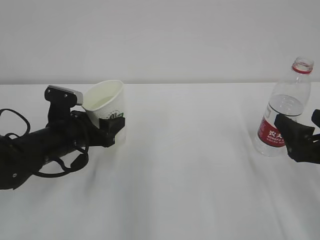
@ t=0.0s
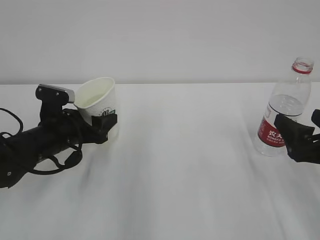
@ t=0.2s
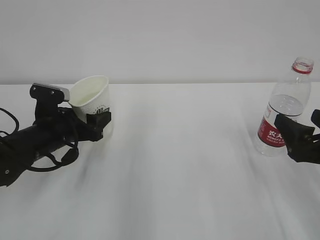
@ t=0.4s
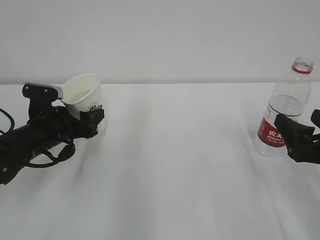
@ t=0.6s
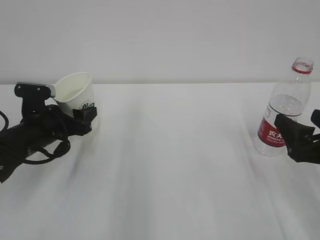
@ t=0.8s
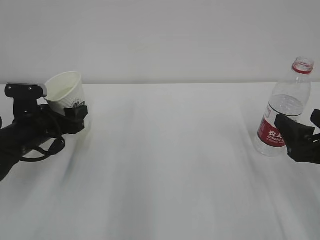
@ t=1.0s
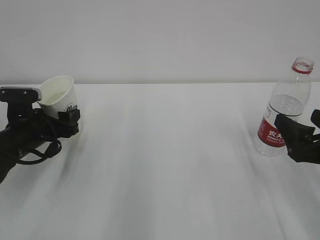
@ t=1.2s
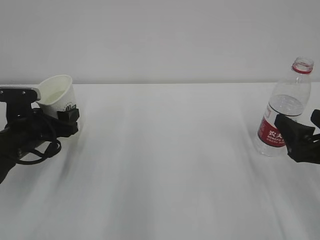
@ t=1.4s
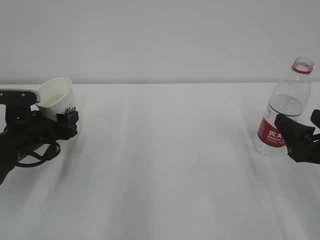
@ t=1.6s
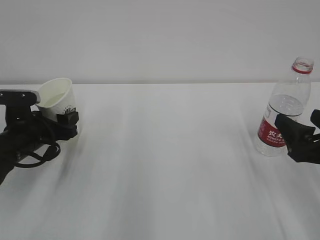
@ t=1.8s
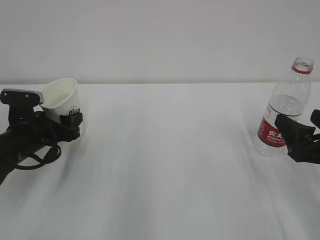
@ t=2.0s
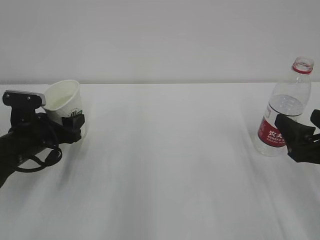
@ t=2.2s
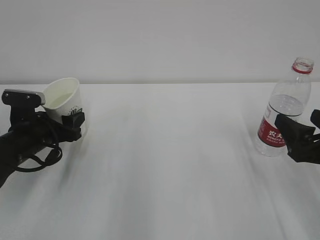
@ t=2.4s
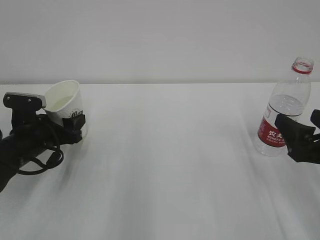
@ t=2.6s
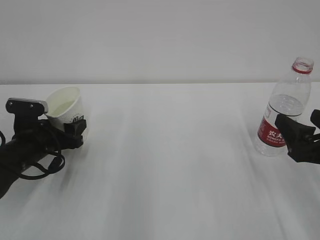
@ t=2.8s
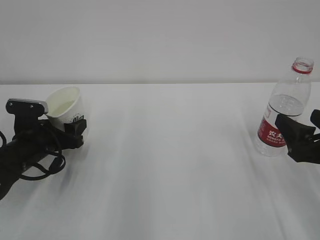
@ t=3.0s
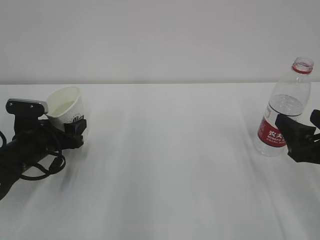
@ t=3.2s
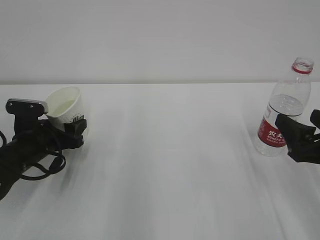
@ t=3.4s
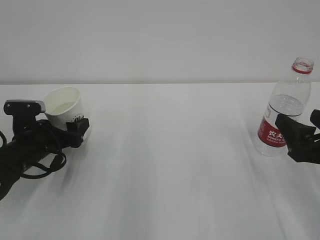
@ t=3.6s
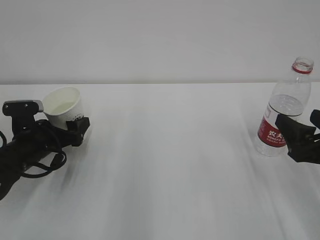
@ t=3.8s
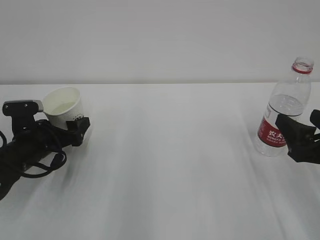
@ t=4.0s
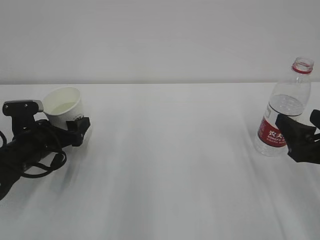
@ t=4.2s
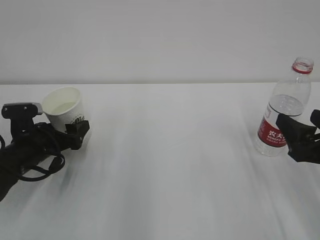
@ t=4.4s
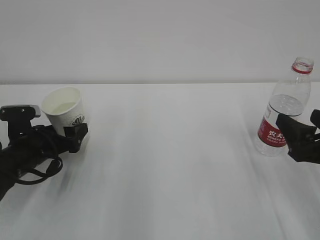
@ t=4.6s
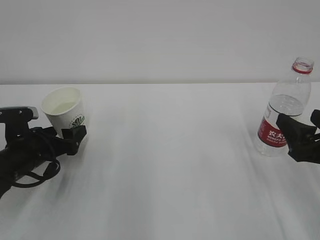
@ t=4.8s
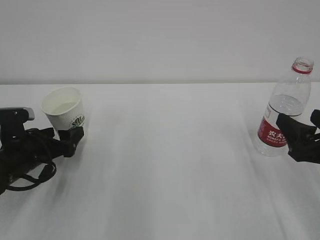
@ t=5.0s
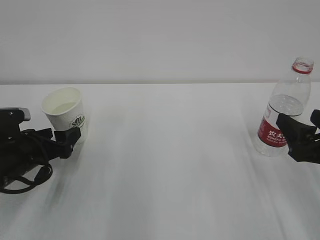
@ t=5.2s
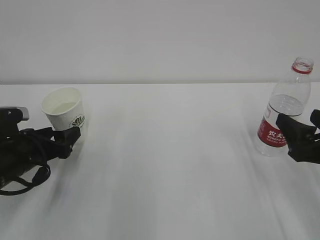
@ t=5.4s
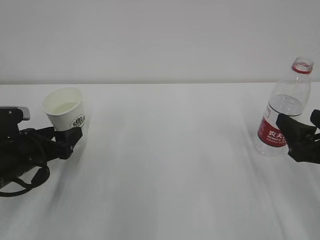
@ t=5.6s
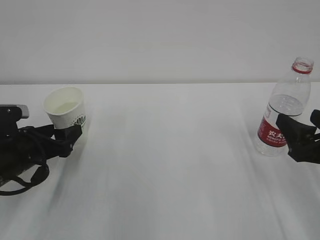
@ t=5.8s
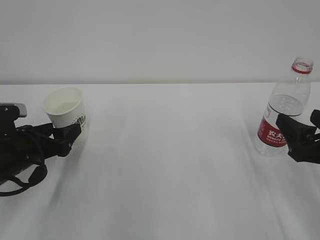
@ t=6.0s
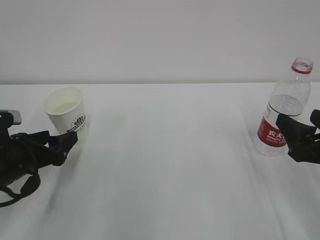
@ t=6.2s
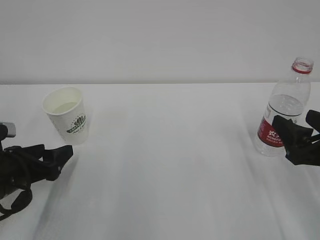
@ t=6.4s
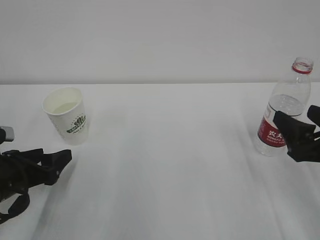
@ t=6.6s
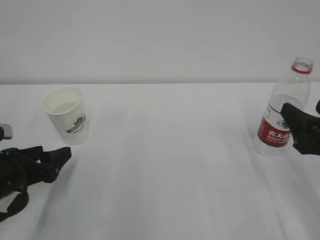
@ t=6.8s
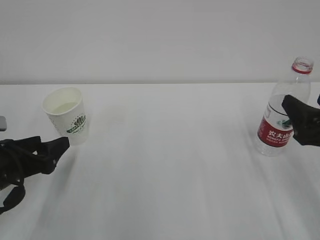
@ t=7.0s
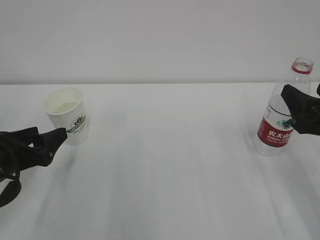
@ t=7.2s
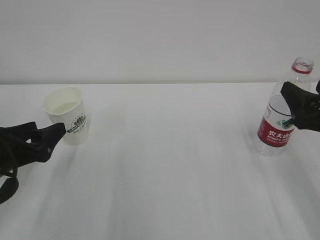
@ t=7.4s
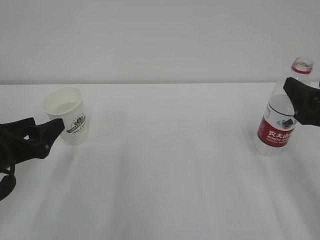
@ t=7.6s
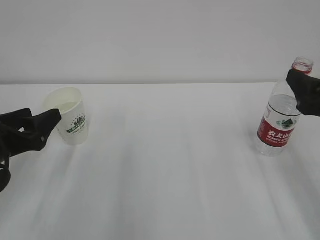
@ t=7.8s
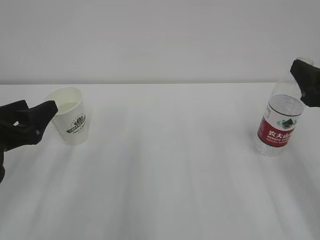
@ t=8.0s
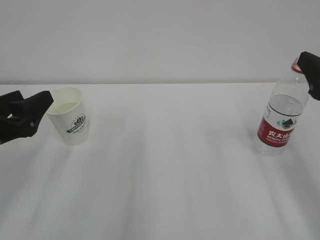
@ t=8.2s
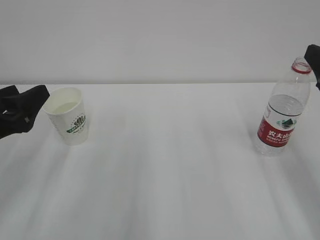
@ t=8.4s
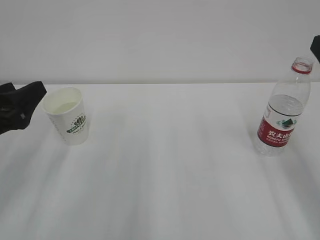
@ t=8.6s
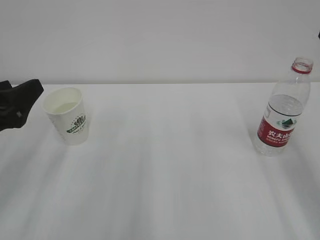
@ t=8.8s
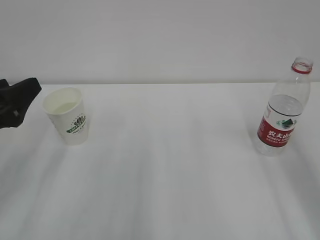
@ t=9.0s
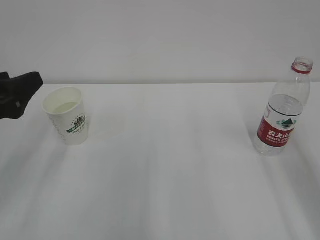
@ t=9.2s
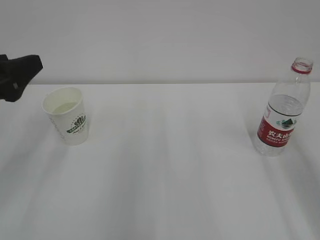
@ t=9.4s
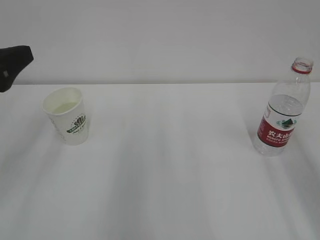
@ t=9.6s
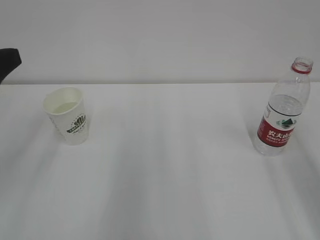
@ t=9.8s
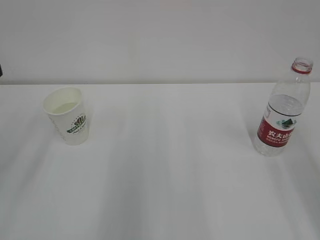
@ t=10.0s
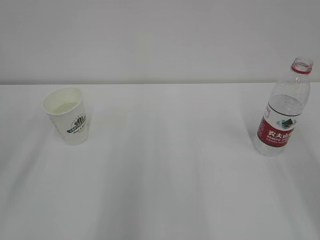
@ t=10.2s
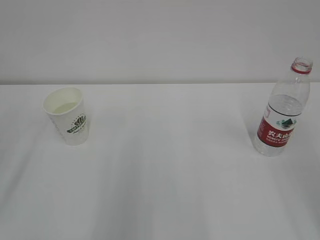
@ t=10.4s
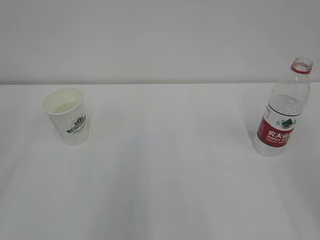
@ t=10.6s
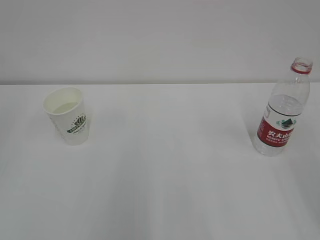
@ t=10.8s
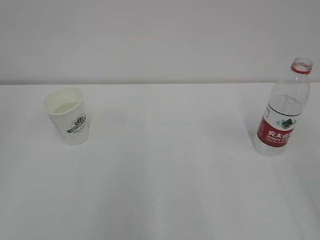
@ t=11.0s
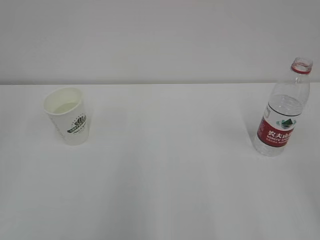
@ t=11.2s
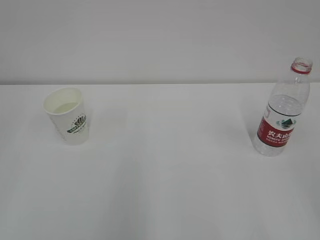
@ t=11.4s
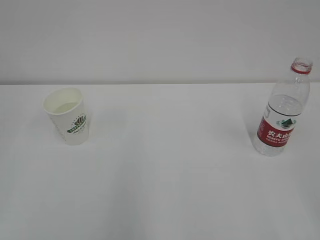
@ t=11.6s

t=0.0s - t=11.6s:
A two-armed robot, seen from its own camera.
t=0.0s - t=1.4s: The left gripper moves to the left, some 5 cm.
t=1.4s - t=2.8s: The grippers stay close to where they were, moving slightly.
t=2.8s - t=4.4s: The left gripper opens.
t=4.4s - t=5.8s: The grippers stay close to where they were, moving slightly.
t=5.8s - t=7.2s: The left gripper changes place by some 5 cm.
t=7.2s - t=8.8s: The two grippers go approximately 10 cm upward.
t=8.8s - t=10.2s: The left gripper is displaced upward and backward by approximately 10 cm.

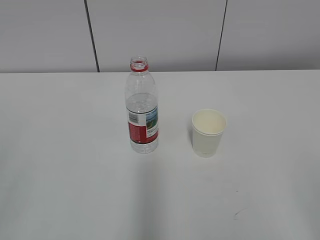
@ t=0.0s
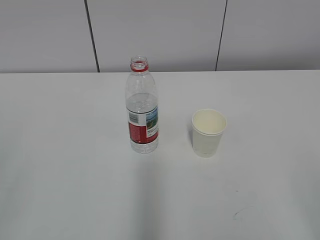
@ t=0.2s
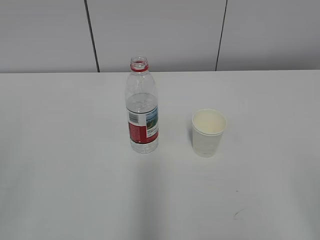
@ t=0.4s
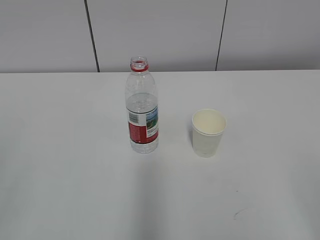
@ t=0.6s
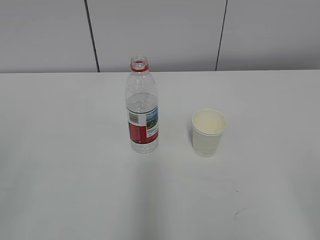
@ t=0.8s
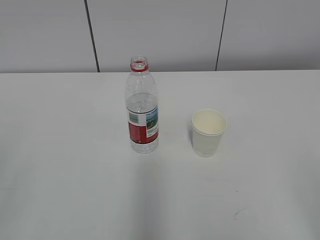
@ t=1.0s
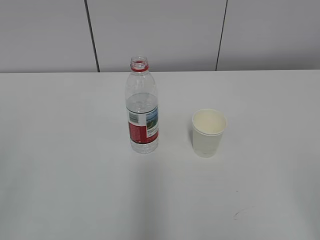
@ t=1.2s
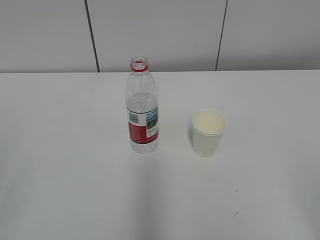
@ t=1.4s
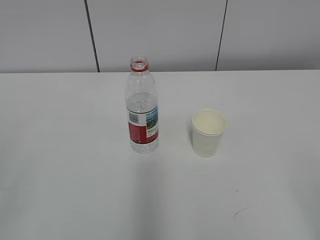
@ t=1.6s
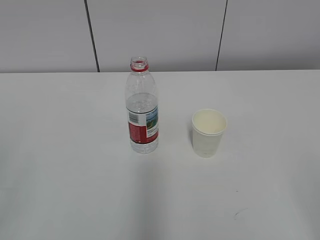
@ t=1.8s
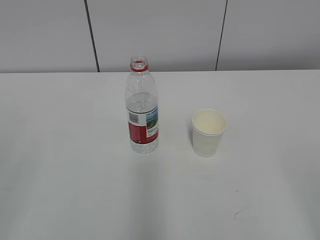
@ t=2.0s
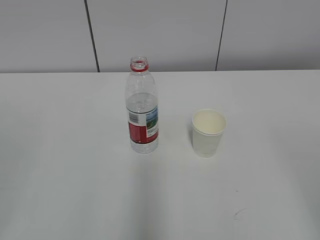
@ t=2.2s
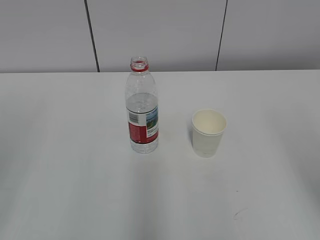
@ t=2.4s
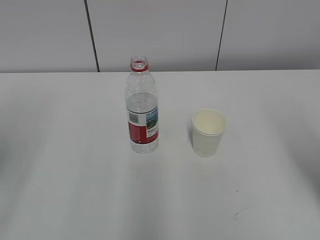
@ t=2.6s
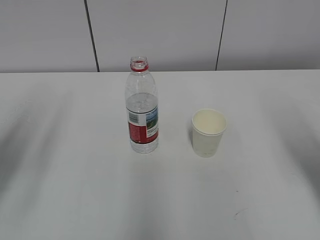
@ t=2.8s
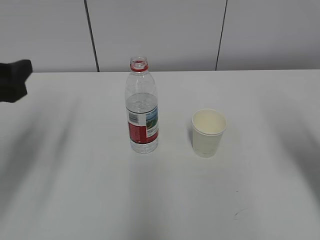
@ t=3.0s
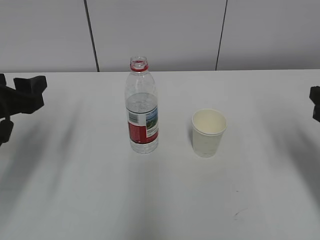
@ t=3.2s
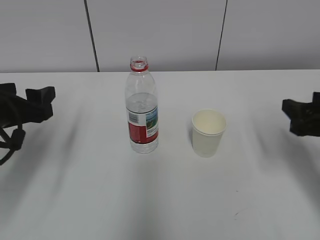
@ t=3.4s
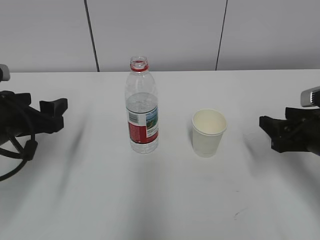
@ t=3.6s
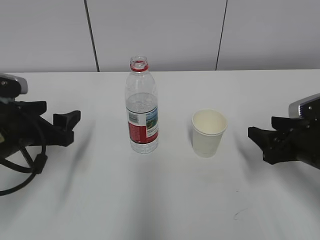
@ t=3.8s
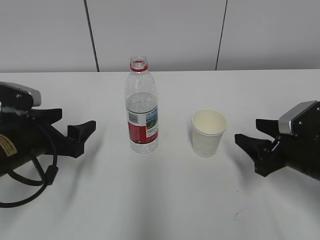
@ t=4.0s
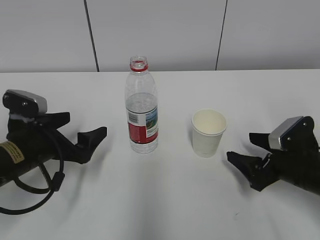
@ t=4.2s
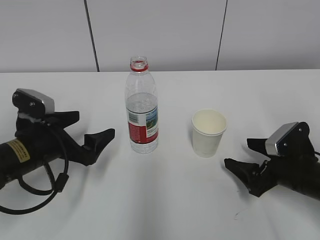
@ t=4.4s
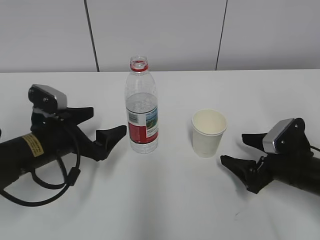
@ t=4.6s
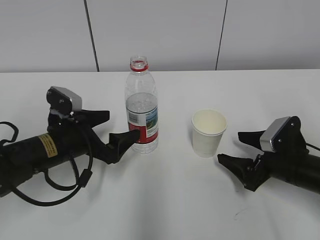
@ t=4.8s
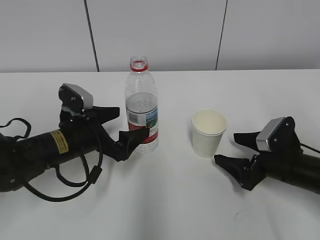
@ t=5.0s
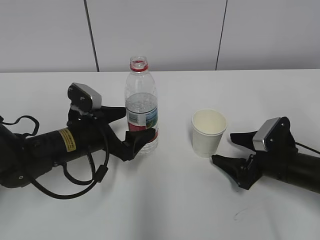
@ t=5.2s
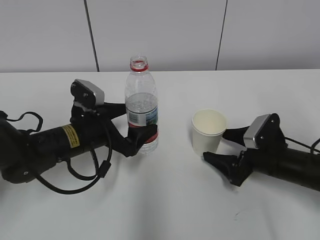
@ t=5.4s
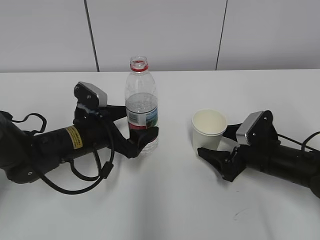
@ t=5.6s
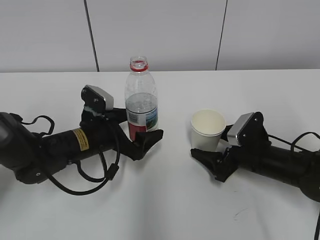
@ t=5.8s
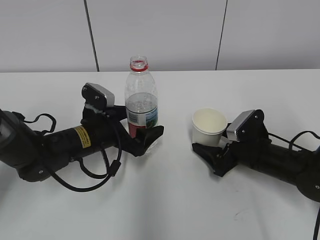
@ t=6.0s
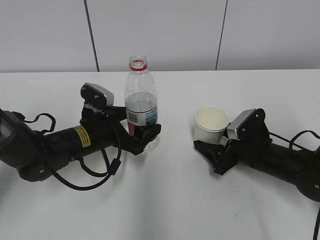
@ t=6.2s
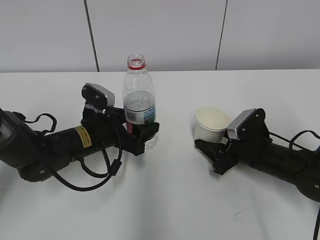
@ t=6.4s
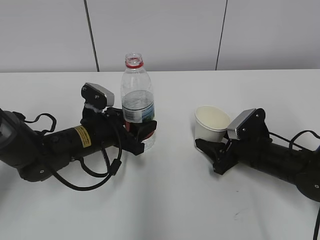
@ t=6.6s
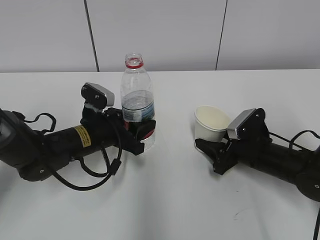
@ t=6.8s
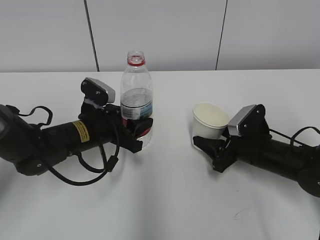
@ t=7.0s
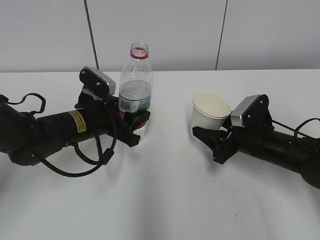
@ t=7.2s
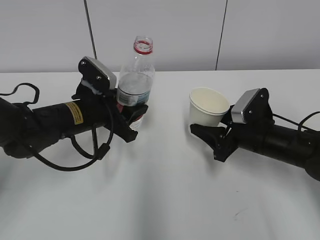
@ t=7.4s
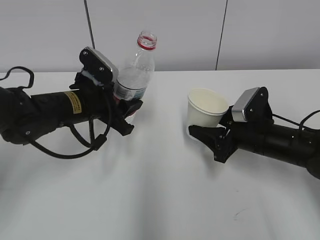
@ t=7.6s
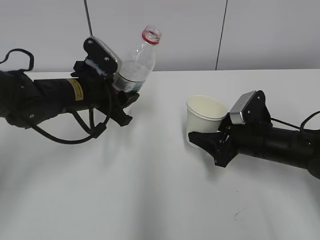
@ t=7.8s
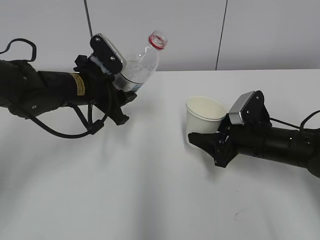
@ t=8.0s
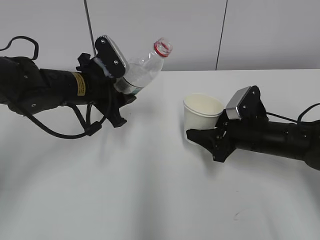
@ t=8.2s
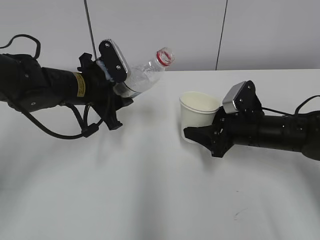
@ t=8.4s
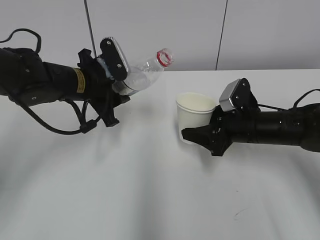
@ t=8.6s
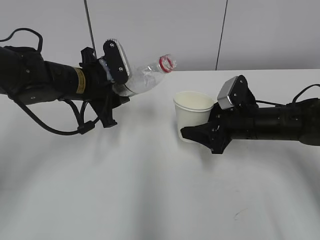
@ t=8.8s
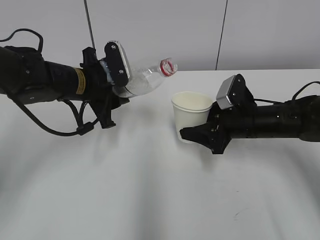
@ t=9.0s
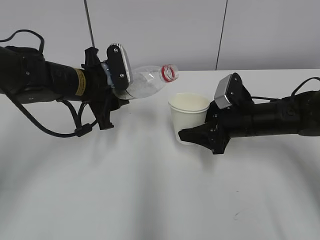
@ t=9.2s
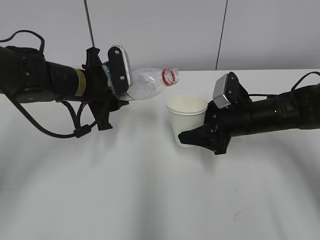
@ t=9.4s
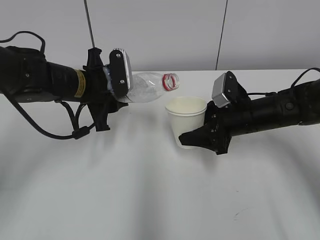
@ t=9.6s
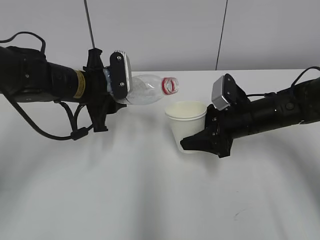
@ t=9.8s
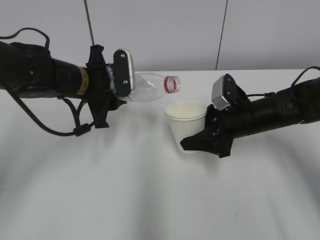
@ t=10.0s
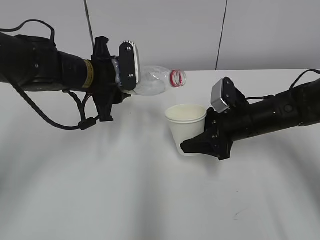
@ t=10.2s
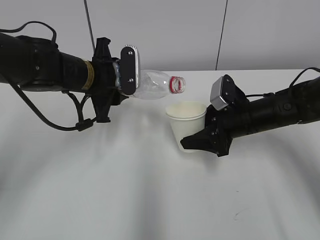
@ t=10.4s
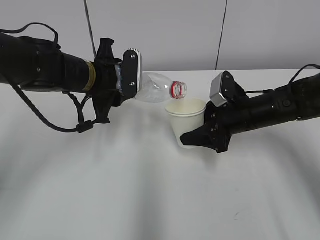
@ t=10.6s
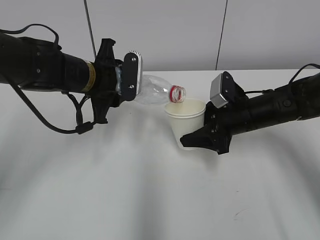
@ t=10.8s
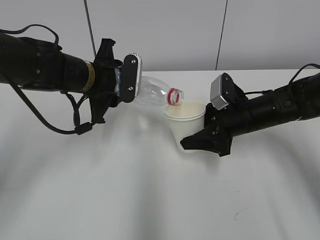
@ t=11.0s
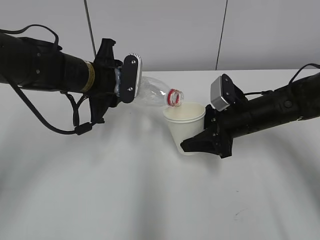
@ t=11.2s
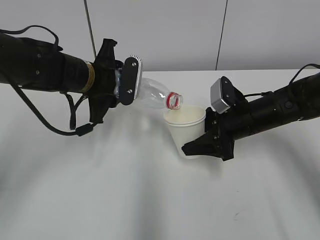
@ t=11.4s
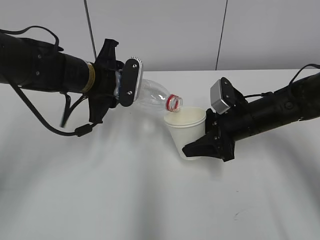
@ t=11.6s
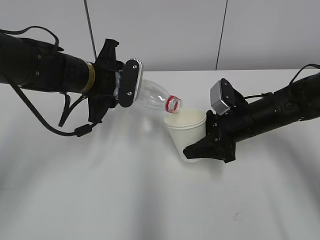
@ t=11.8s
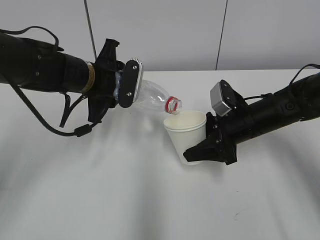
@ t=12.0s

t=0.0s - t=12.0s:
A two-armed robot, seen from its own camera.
Step, t=0.0s - t=5.0s: Grab the paper cup with the right hand.
Step, t=5.2s - t=5.4s: Grab the water bottle with the left hand.
Step, t=5.6s - t=10.2s: Lift the paper cup with the right hand.
t=1.6s - t=3.0s: The grippers both shift forward by some 25 cm.
t=3.0s - t=4.4s: Both grippers move downward, some 15 cm. The left gripper opens. Meanwhile the right gripper opens.
t=4.4s - t=6.0s: The left gripper shifts approximately 10 cm to the right and forward, while the right gripper goes about 5 cm forward.
t=6.0s - t=7.6s: Both grippers move upward, about 5 cm. The left gripper closes its fingers, while the right gripper closes.
t=9.0s - t=10.4s: The grippers move only a little.
t=10.4s - t=12.0s: There are only small adjustments of the grippers.
